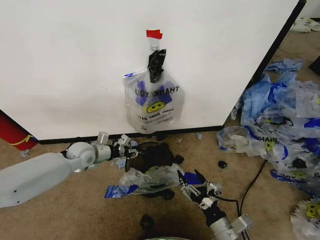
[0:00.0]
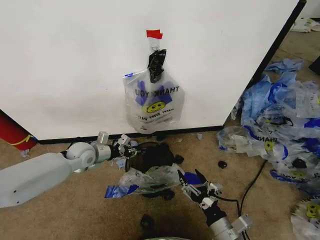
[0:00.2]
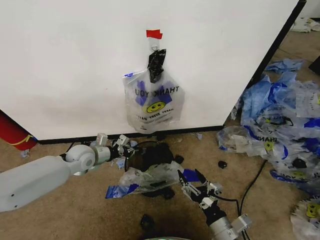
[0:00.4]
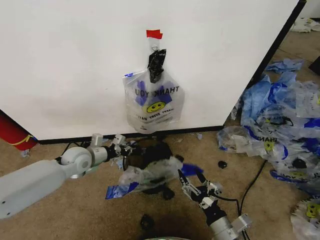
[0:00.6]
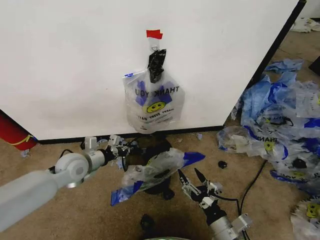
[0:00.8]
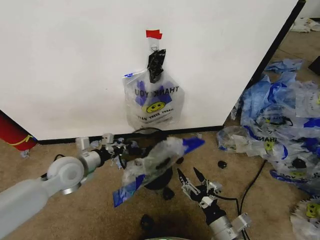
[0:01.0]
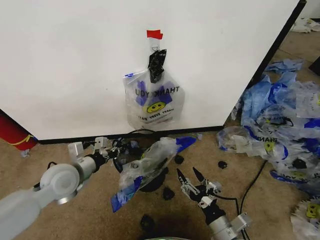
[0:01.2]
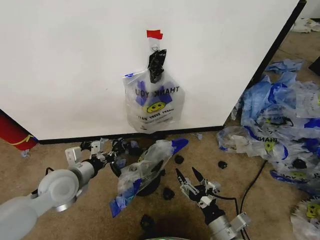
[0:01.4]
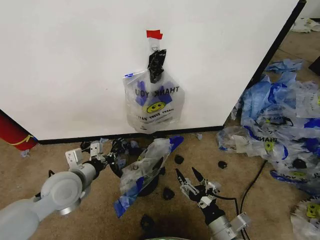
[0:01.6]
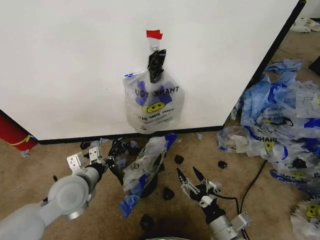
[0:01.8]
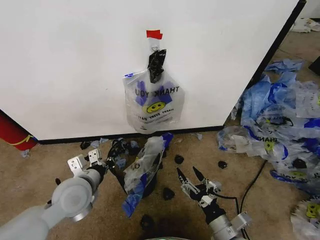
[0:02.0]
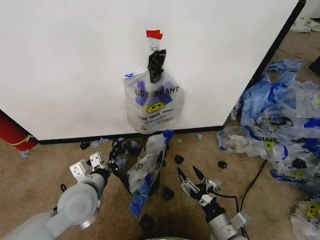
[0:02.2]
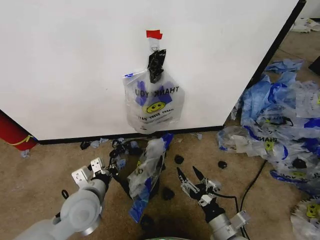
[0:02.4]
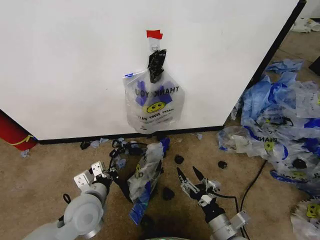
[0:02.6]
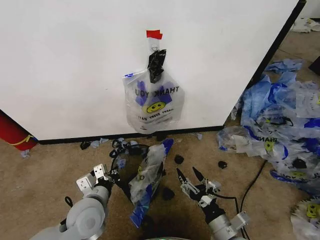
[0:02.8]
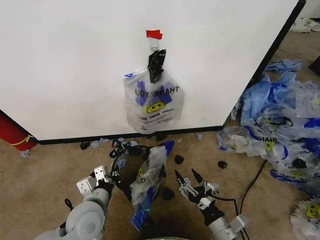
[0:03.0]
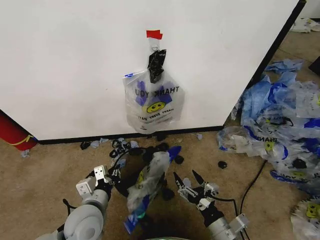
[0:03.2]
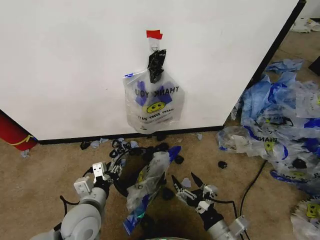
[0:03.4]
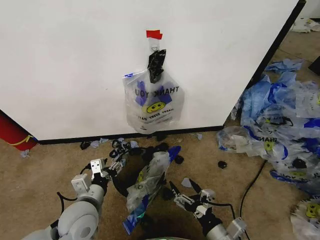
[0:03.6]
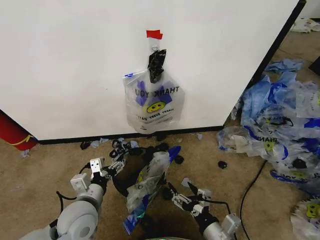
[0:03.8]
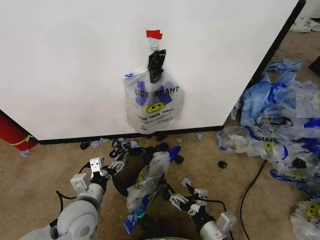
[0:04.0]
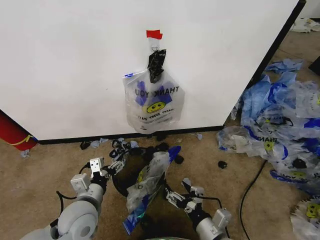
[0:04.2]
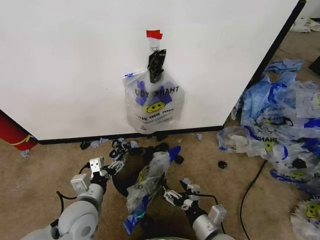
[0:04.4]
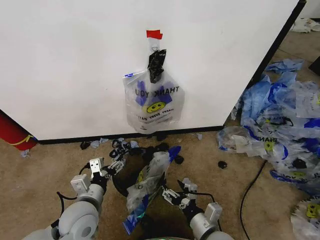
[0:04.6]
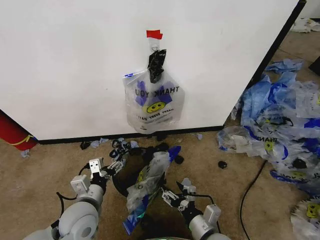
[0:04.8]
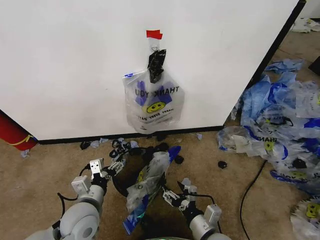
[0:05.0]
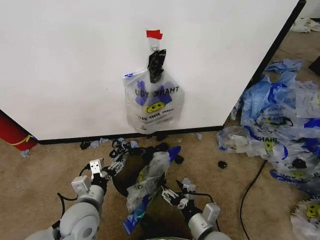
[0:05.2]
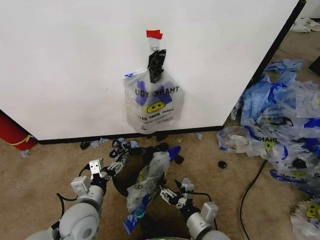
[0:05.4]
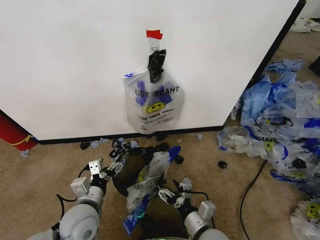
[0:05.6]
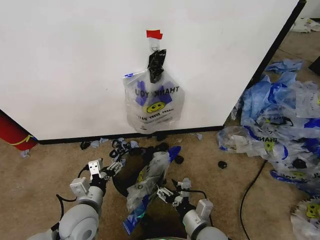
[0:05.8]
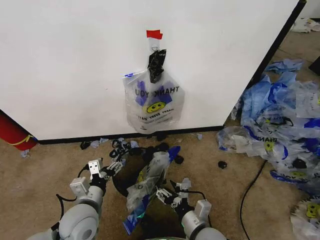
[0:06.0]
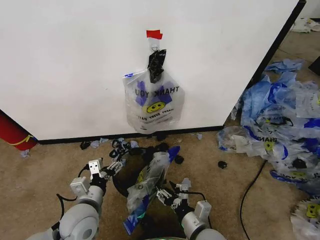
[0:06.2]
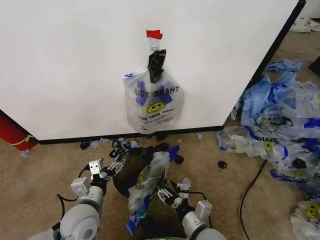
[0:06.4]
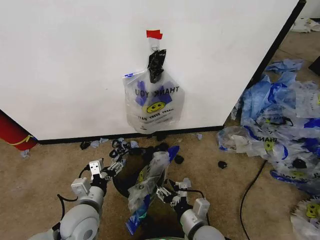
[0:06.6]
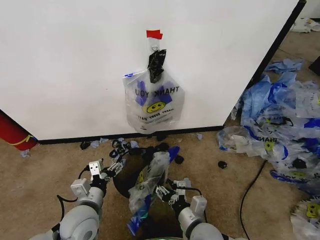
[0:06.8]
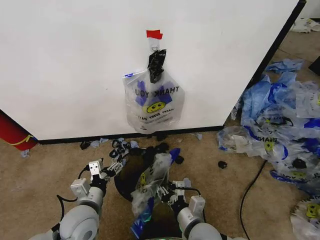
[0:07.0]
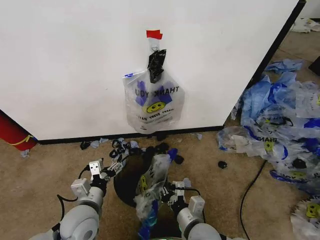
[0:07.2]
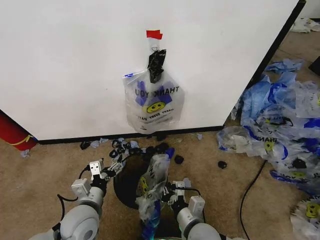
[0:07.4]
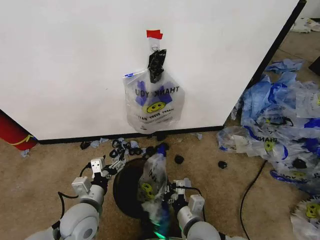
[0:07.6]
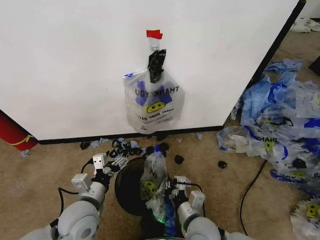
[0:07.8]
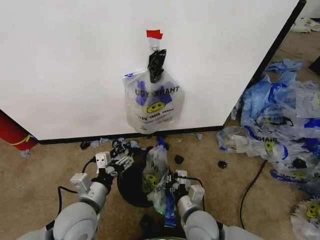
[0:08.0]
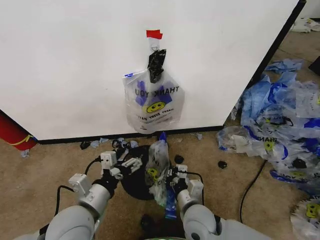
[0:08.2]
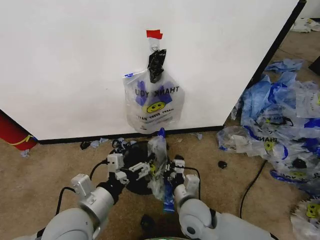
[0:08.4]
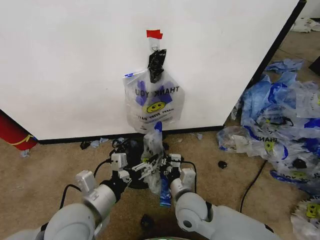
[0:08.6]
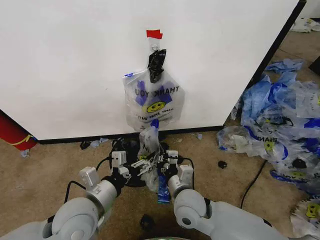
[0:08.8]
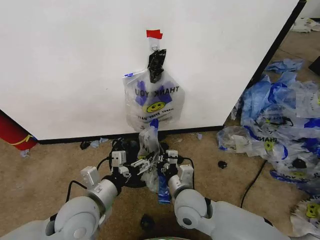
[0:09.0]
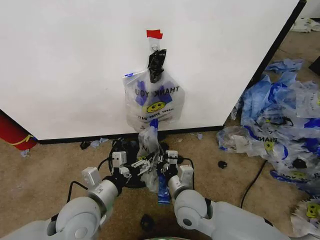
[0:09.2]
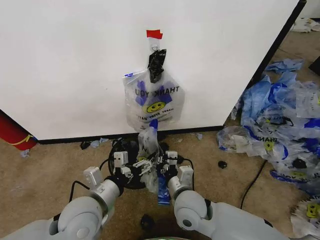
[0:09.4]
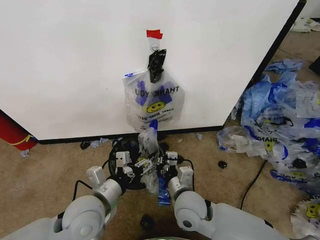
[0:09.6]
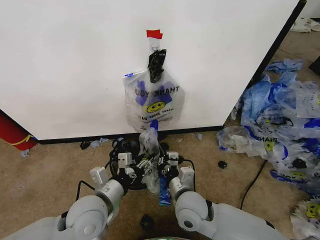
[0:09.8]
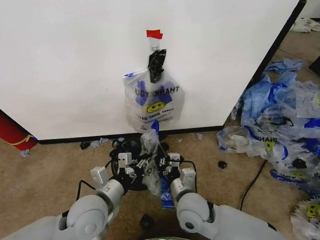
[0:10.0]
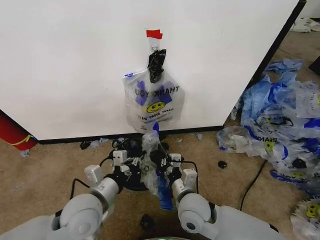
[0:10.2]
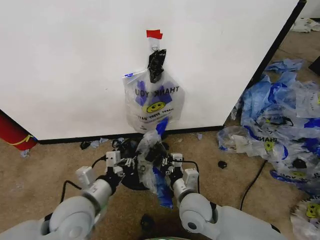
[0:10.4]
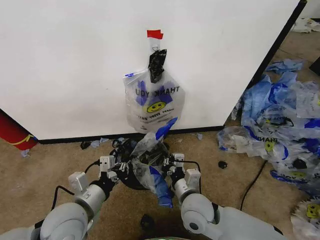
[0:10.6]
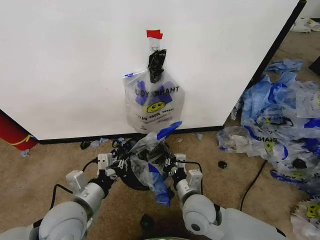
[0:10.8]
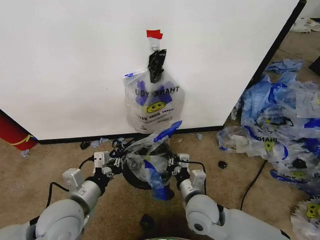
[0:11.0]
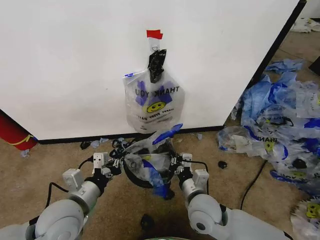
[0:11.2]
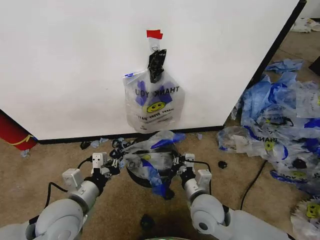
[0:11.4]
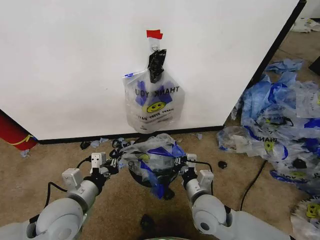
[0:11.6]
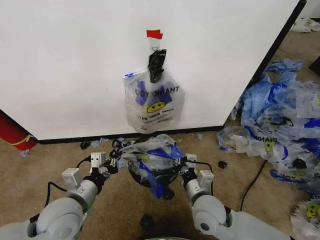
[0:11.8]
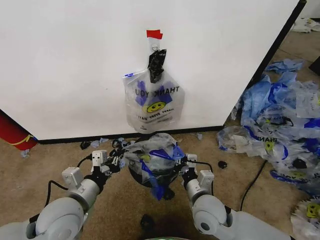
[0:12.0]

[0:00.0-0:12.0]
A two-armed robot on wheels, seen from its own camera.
Task of the whole recording: Pick up the garbage bag from the wall and place it over the trash bin.
0:00.0 to 0:01.6: The left gripper shifts approximately 15 cm backward.
0:01.6 to 0:03.0: The left gripper heads downward, to the right and backward, covering about 10 cm.
0:03.0 to 0:04.4: The left gripper opens up.
0:04.4 to 0:06.0: The grippers move only a little.
0:06.0 to 0:07.6: The right gripper closes up.
0:07.6 to 0:09.0: The right gripper is displaced forward by approximately 10 cm; the left gripper goes approximately 10 cm upward.
0:09.0 to 0:10.4: The left gripper closes its fingers.
0:10.4 to 0:12.0: The grippers stay close to where they were, moving slightly.

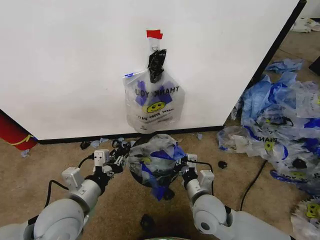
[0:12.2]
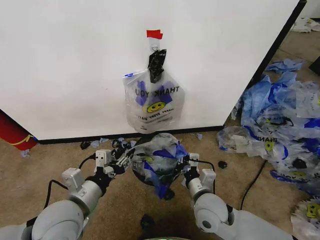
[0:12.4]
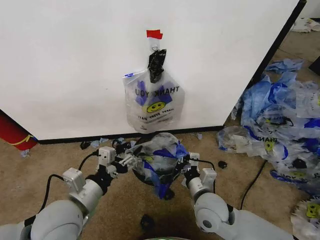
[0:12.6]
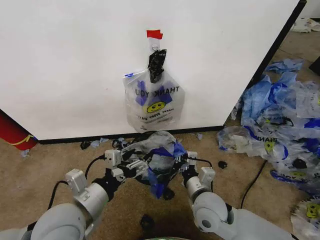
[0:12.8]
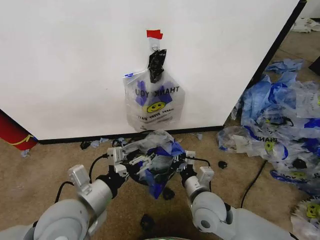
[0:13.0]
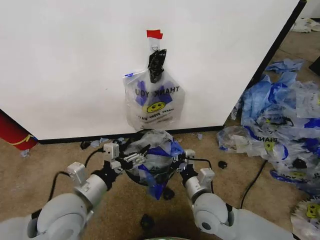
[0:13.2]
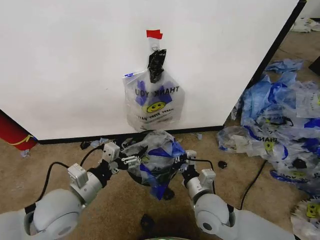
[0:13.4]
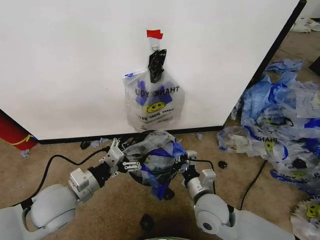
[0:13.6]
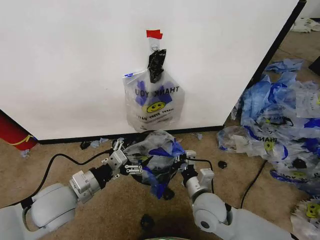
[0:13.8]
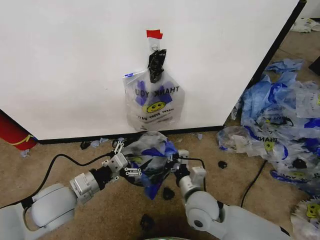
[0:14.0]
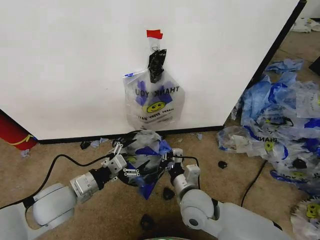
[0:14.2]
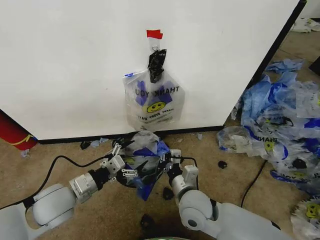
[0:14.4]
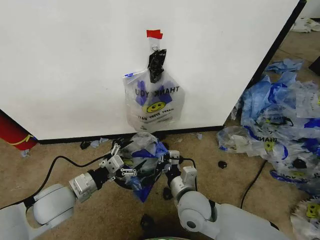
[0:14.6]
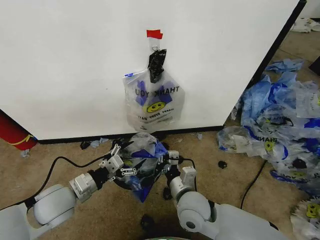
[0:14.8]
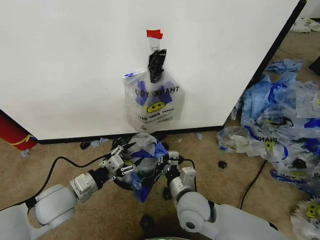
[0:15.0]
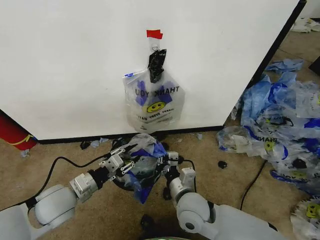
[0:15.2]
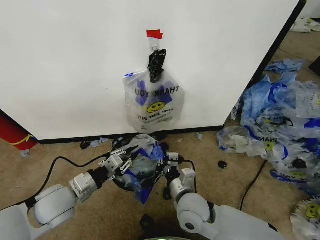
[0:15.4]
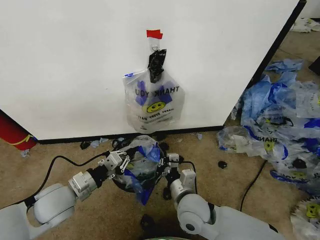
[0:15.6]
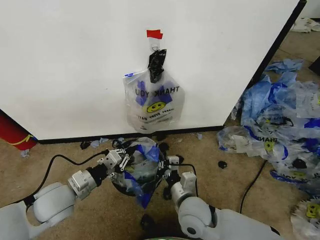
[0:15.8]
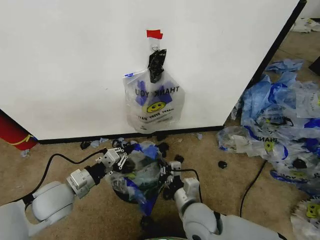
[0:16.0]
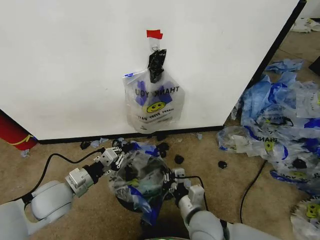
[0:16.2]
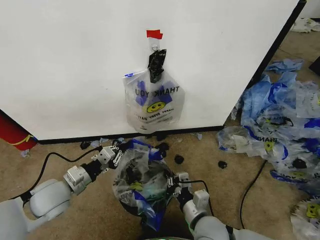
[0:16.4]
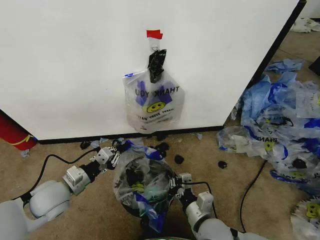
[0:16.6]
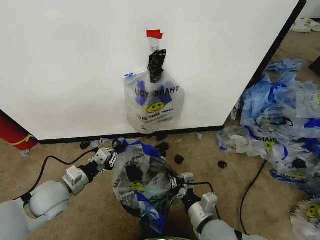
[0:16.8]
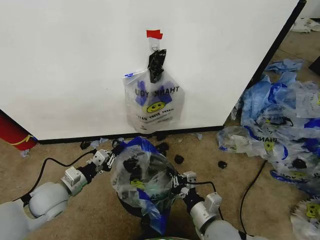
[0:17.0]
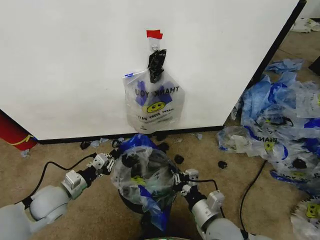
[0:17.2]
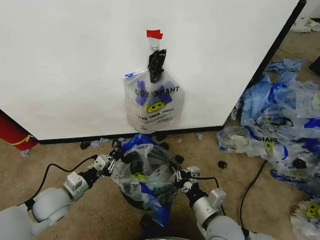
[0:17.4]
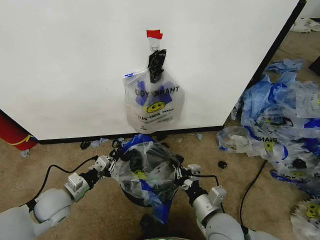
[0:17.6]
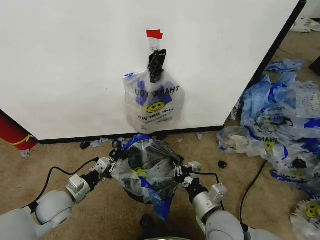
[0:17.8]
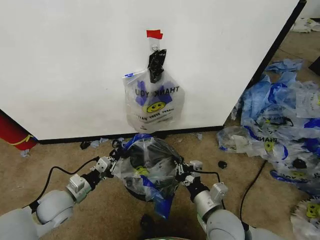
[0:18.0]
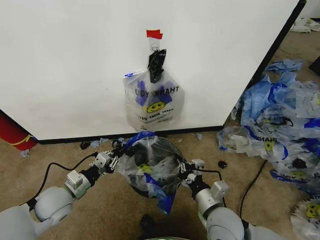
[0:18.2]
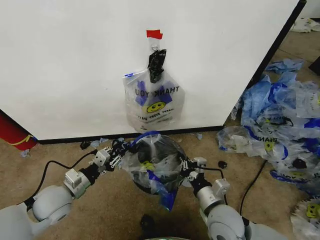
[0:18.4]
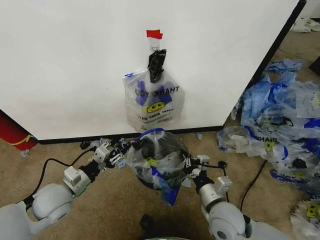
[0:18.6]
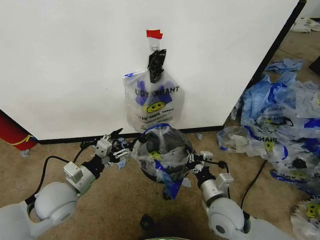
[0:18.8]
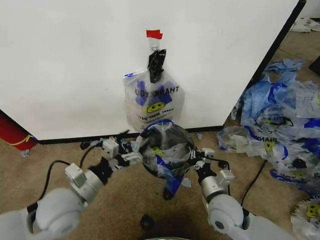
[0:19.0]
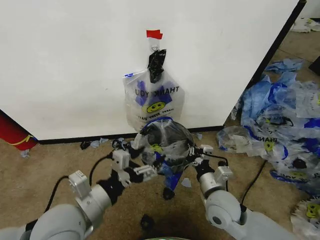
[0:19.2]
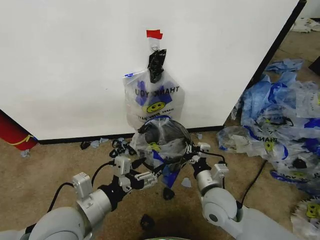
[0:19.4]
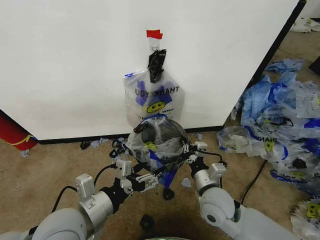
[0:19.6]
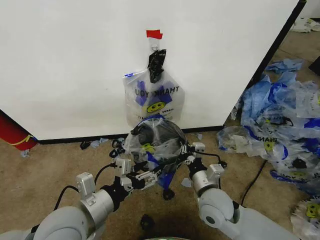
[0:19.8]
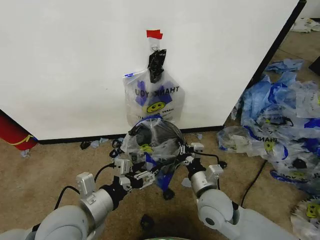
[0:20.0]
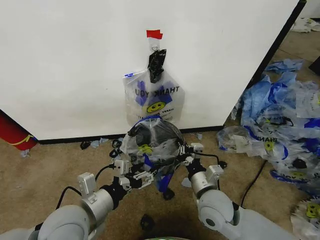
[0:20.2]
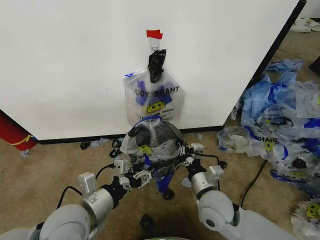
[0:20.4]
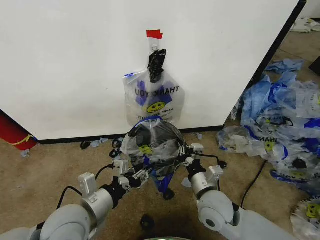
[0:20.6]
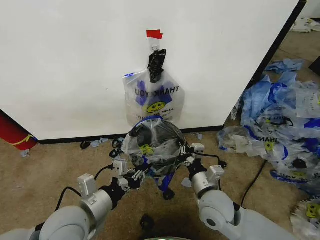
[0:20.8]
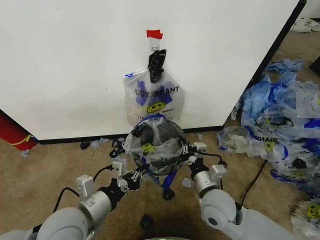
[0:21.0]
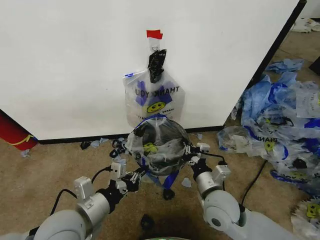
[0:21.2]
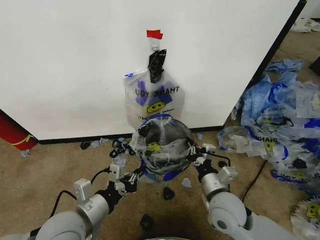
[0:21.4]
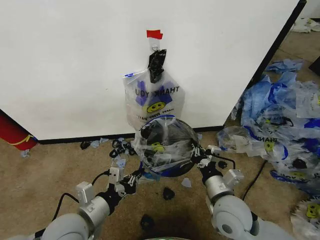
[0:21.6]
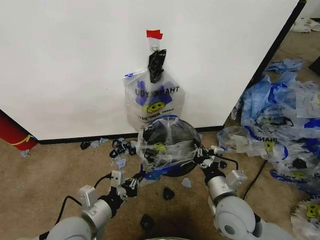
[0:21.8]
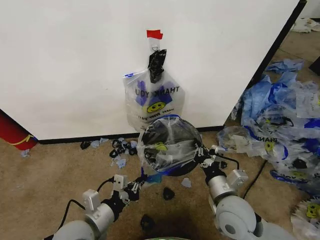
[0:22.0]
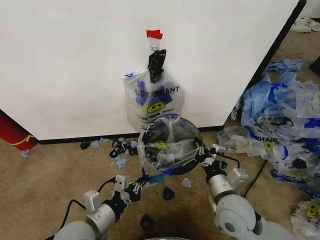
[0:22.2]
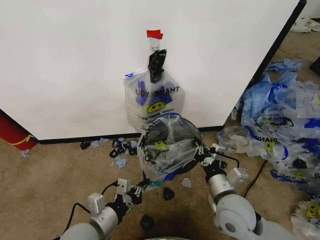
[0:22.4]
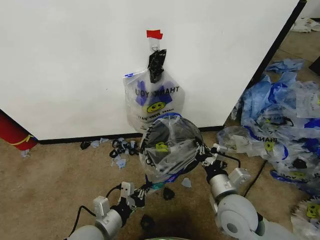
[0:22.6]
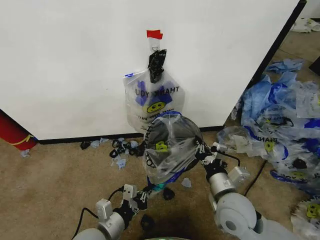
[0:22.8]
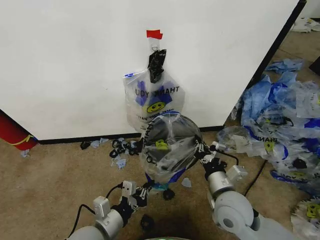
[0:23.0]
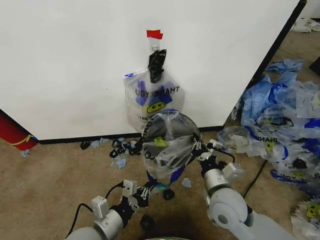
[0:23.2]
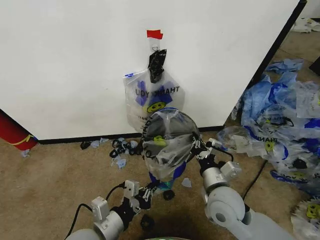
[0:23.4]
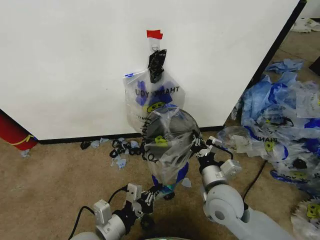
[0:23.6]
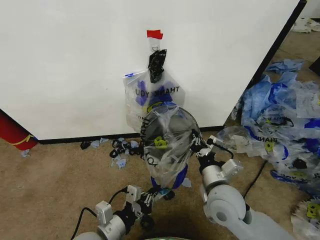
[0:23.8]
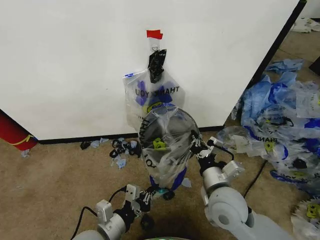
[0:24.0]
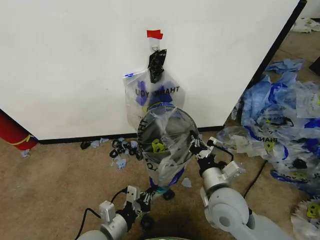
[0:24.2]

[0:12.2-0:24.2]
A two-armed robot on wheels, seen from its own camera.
Task of the whole recording: Pick up the garbage bag from the wall and place it over the trash bin.
0:12.2 to 0:13.8: The left gripper ends up roughly 5 cm from where it was, and opens.
0:13.8 to 0:15.2: The left gripper closes.
0:15.2 to 0:16.6: The left gripper closes; the right gripper is displaced backward and to the right by approximately 10 cm.
0:18.2 to 0:19.8: The right gripper ends up about 5 cm from where it was. Meanwhile the left gripper is displaced to the right, upward and backward by approximately 20 cm, and opens up.
0:19.8 to 0:21.2: The left gripper closes up.
0:21.2 to 0:22.6: The left gripper heads downward, covering some 10 cm.
0:22.6 to 0:24.2: The grippers make only small movements.
